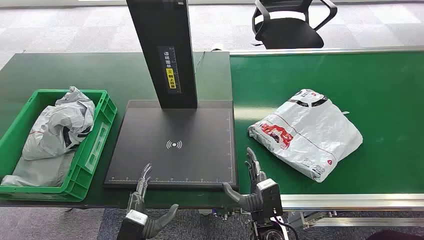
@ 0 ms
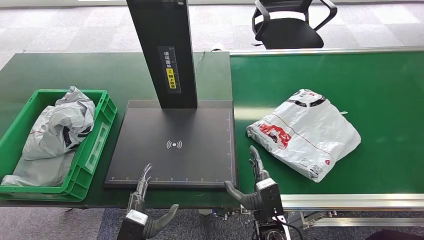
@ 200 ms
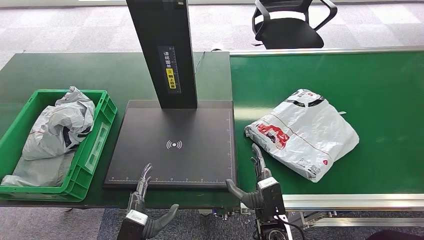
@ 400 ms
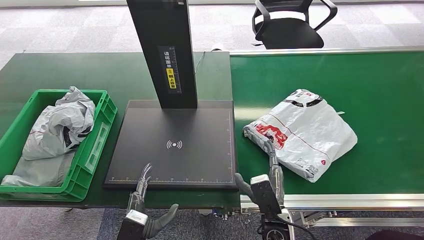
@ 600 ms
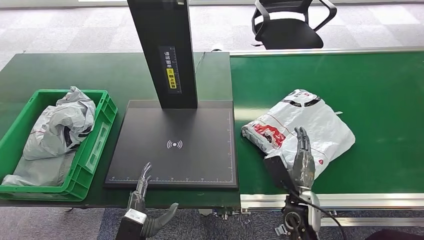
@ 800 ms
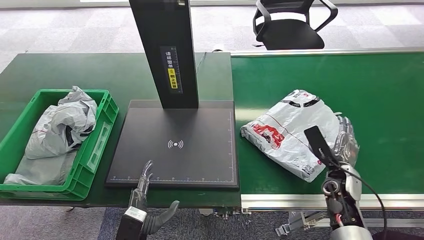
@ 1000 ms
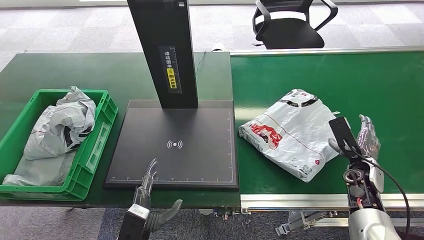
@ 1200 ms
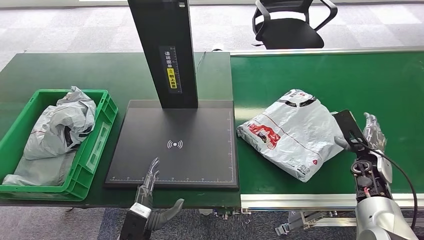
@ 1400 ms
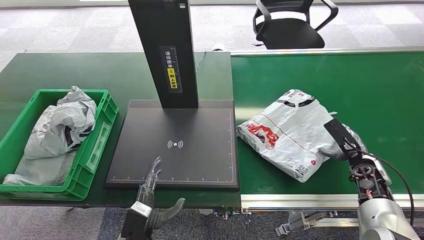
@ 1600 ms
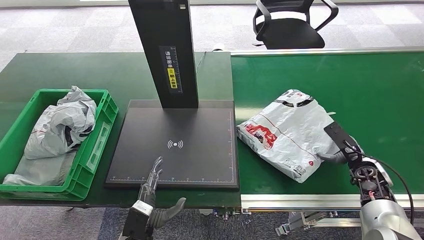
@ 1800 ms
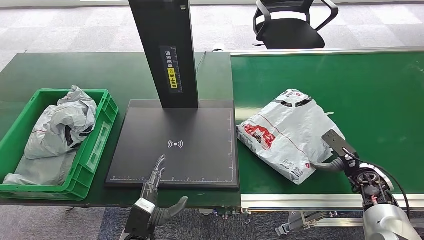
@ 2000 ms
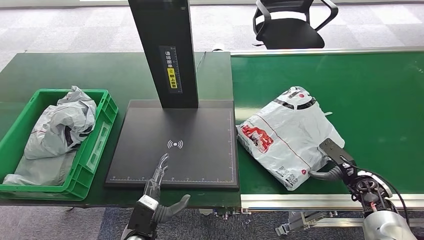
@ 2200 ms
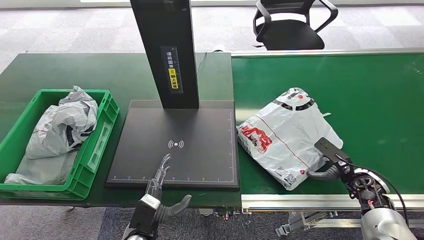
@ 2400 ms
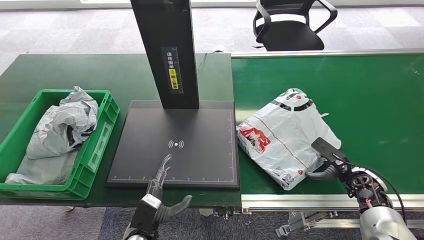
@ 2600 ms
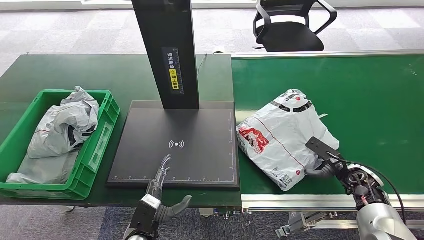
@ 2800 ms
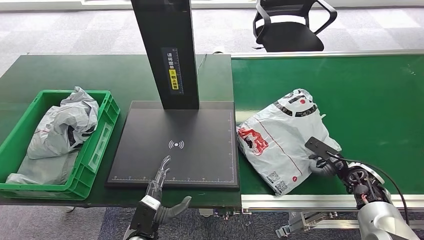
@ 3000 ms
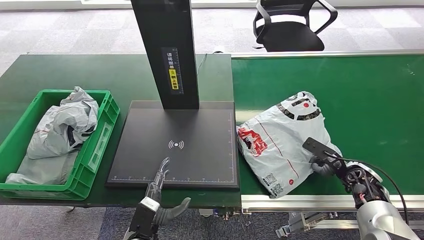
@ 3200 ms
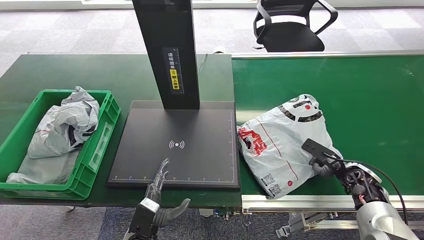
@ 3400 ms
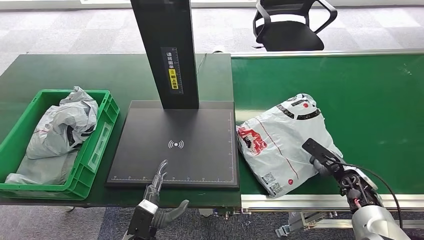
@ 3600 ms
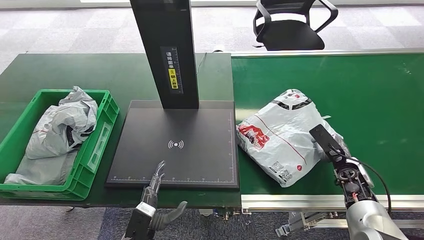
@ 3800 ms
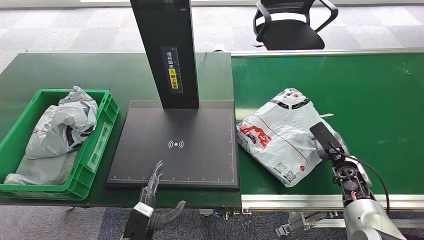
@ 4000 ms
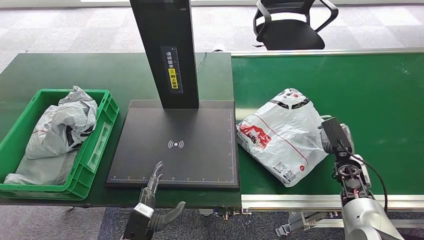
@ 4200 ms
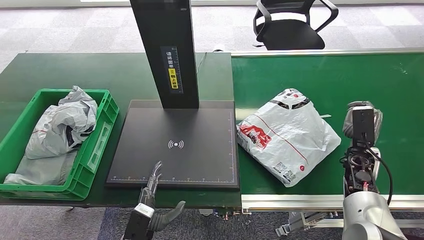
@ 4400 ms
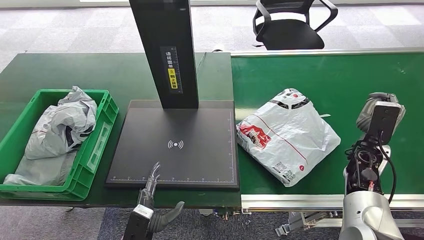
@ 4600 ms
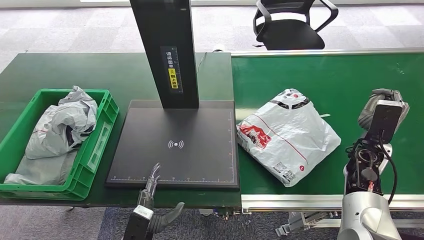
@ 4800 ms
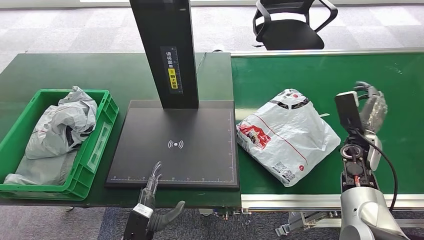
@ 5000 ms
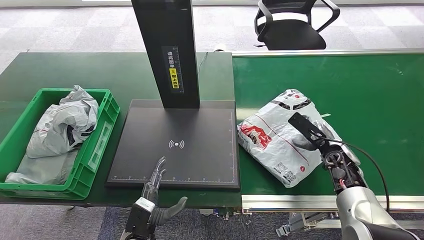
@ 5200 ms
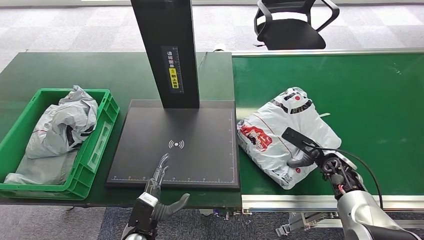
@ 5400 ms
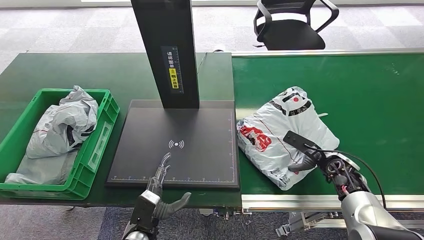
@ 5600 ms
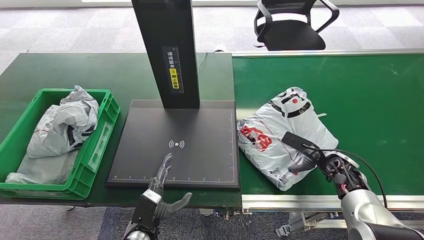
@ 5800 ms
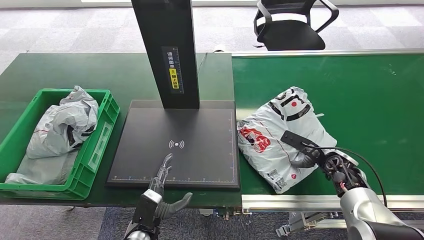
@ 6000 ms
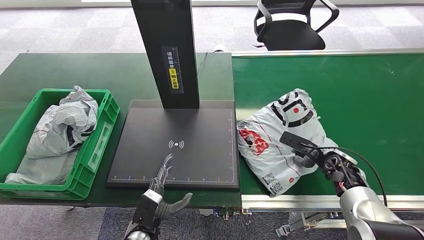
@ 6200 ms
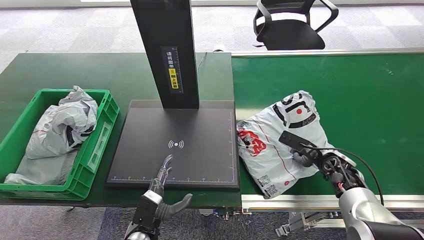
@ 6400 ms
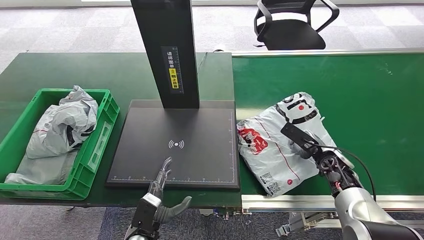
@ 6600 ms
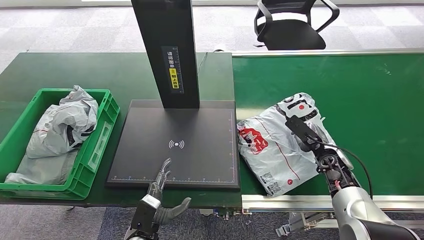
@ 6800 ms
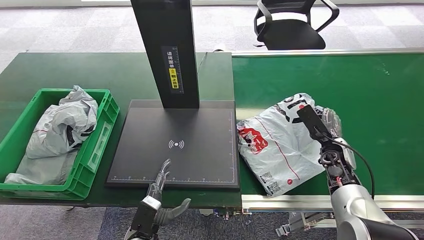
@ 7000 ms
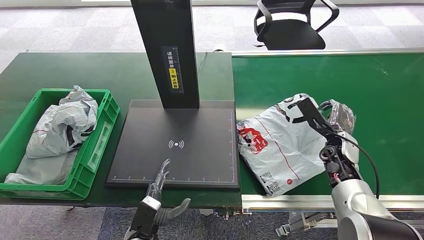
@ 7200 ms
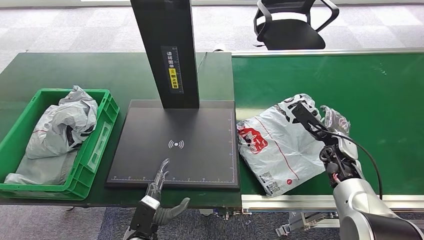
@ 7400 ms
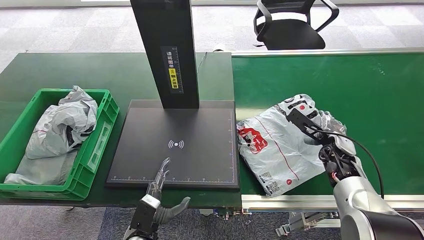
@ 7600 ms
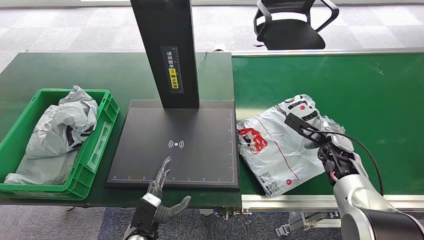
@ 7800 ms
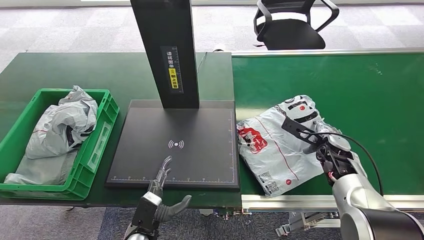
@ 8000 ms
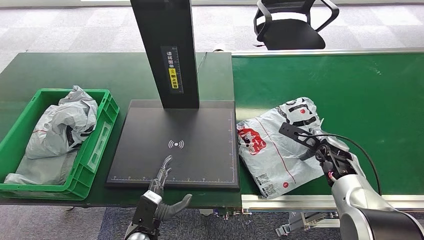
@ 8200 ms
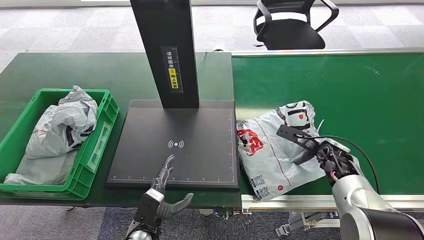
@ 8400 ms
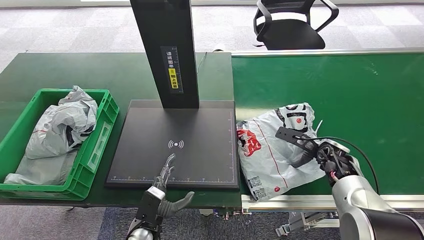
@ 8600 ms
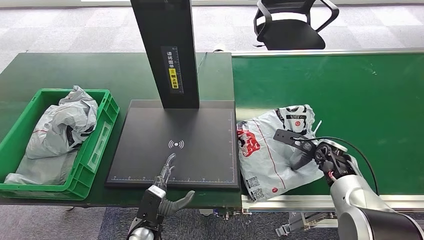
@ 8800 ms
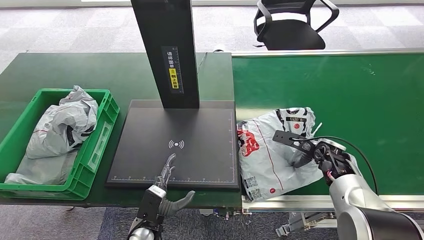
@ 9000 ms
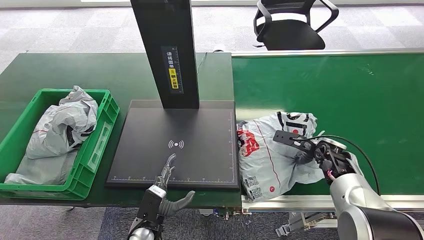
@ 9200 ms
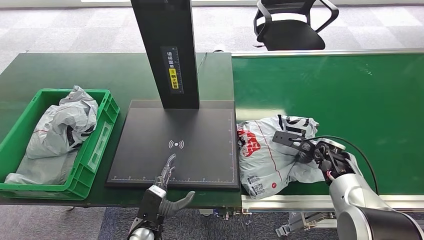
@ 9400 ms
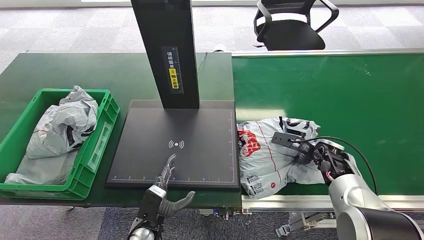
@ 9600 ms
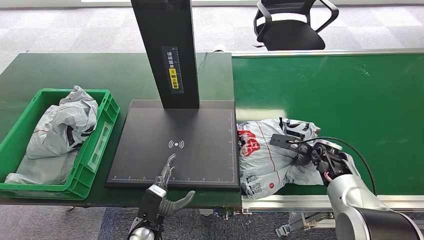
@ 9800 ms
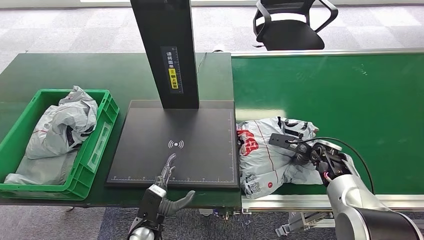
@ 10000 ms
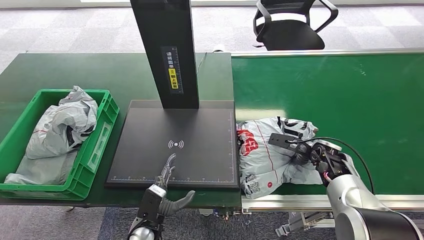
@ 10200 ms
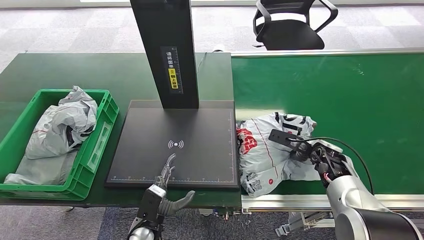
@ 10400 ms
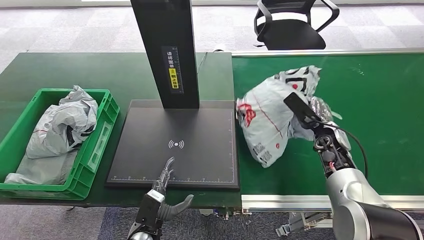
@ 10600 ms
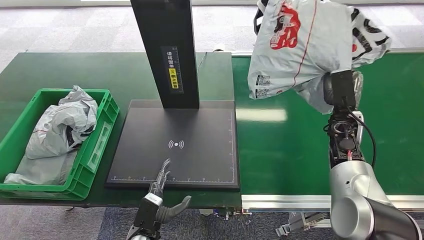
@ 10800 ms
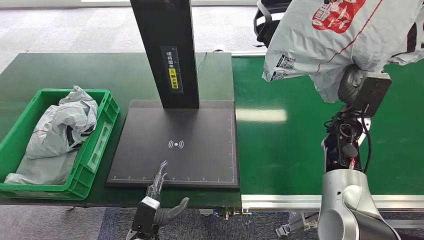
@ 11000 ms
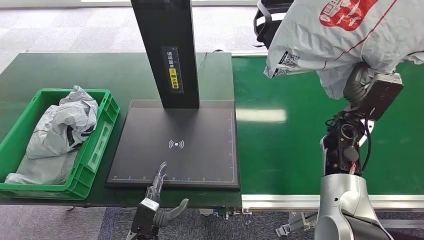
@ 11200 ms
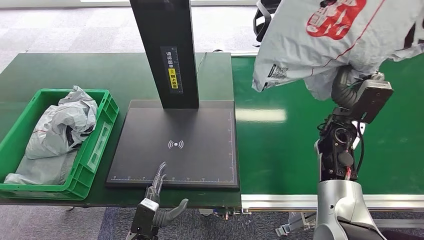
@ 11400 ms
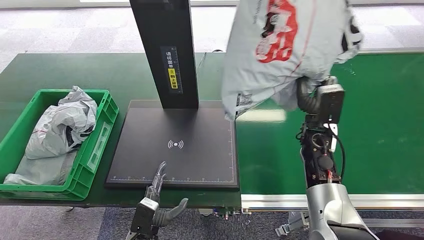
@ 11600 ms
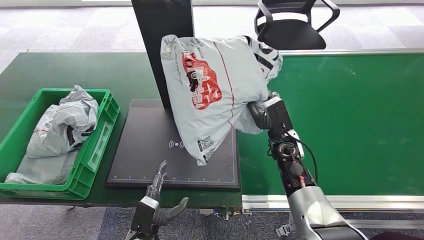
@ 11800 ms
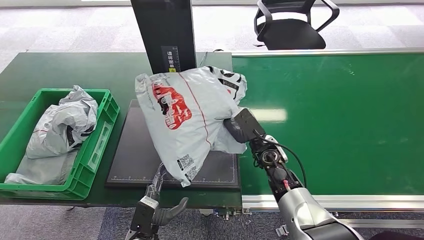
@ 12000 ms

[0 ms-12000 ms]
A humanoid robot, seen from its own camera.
Step, 0 ms to 11200 ms: Pick up the package from the conveyor belt.
3000 ms to 4400 ms: The right hand ends up roughly 5 cm from where it was.
6000 ms to 7600 ms: The right hand moves about 5 cm.
9000 ms to 10400 ms: The hands move only a little.

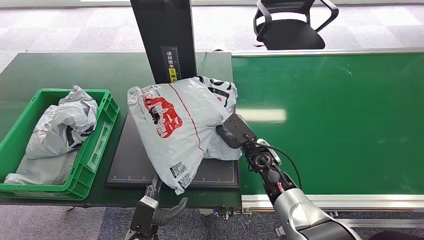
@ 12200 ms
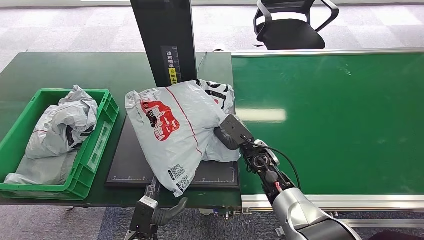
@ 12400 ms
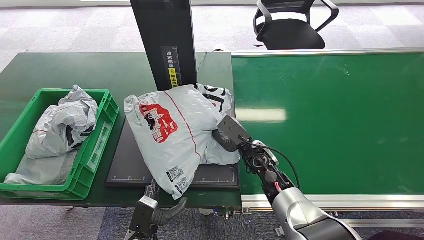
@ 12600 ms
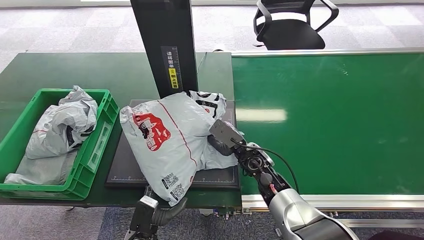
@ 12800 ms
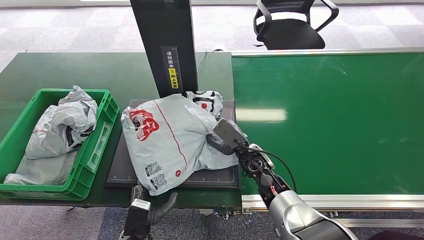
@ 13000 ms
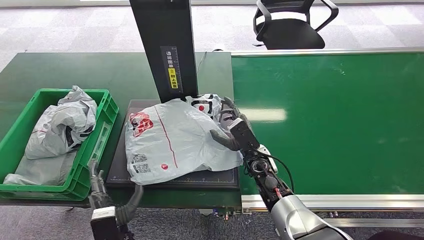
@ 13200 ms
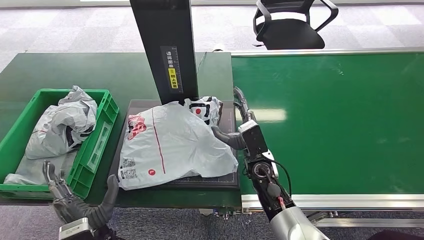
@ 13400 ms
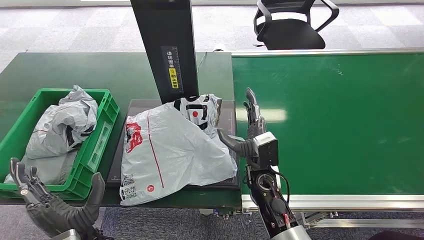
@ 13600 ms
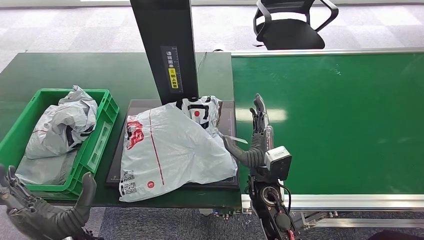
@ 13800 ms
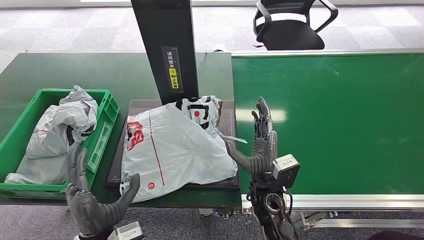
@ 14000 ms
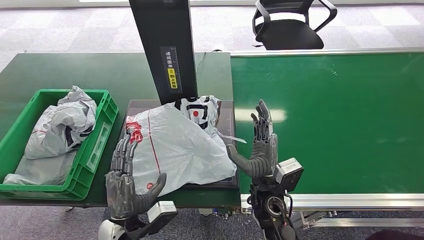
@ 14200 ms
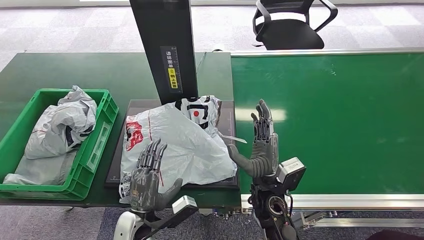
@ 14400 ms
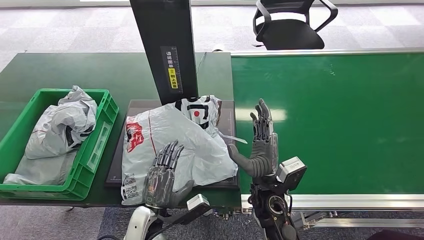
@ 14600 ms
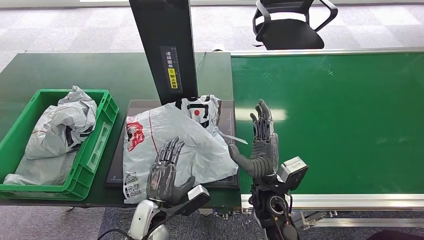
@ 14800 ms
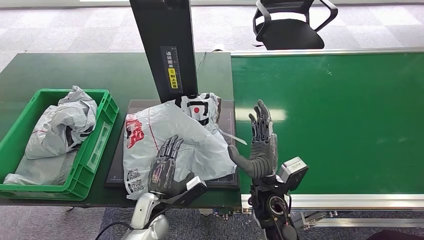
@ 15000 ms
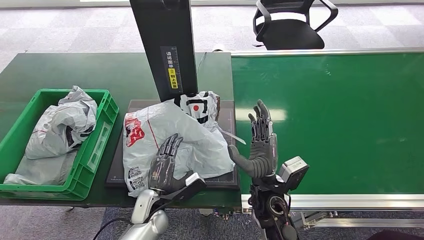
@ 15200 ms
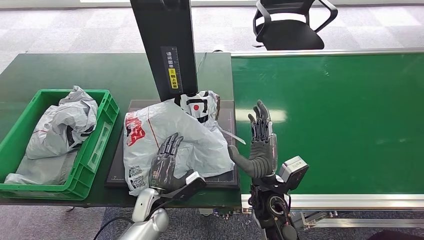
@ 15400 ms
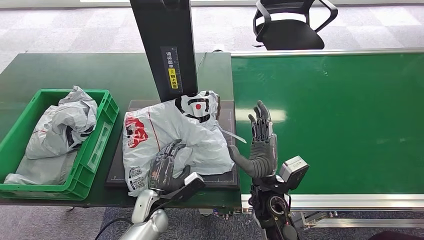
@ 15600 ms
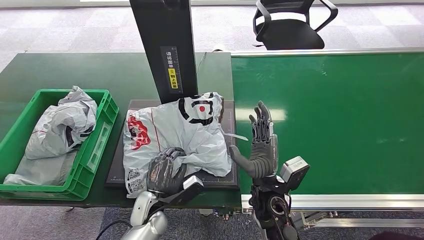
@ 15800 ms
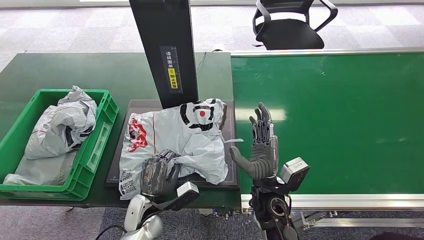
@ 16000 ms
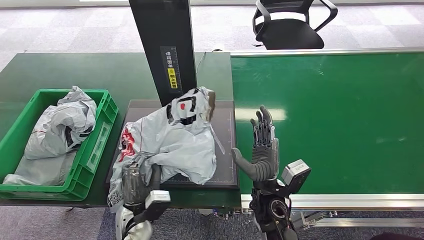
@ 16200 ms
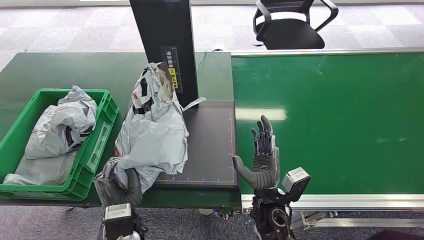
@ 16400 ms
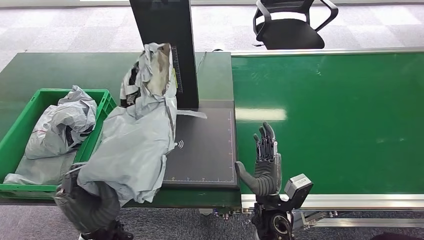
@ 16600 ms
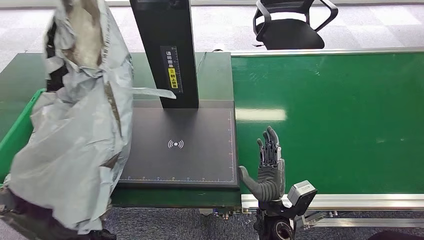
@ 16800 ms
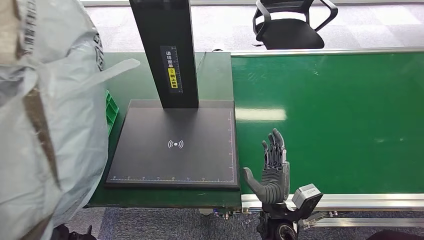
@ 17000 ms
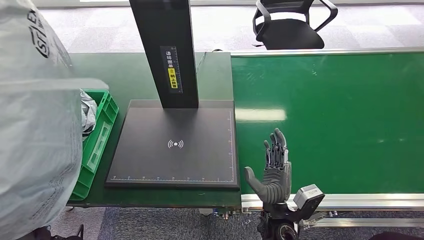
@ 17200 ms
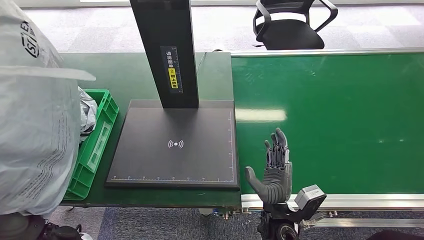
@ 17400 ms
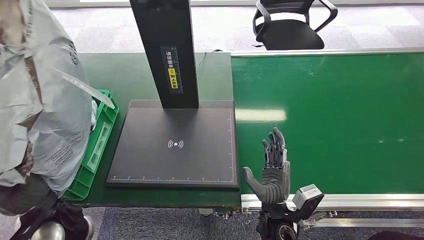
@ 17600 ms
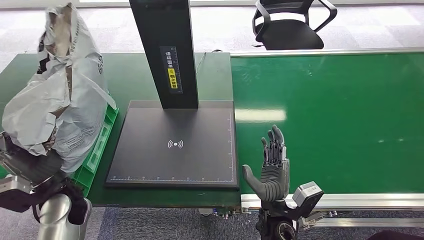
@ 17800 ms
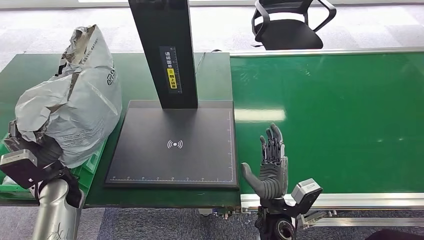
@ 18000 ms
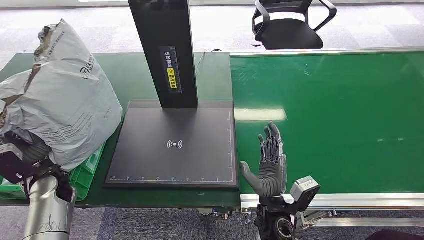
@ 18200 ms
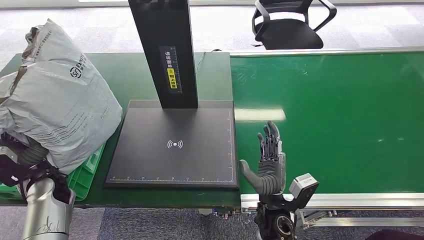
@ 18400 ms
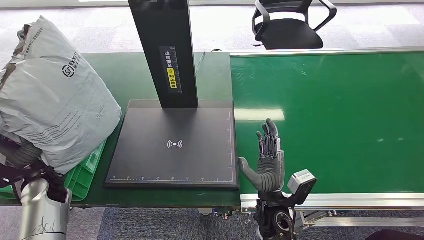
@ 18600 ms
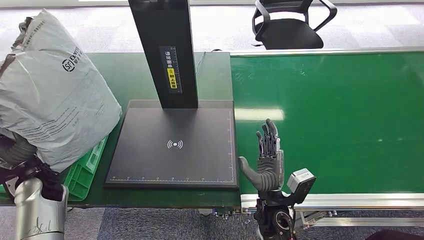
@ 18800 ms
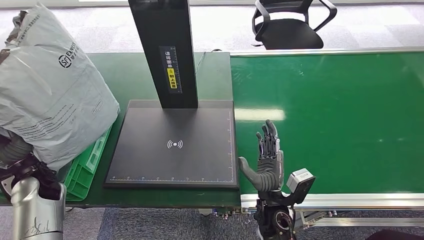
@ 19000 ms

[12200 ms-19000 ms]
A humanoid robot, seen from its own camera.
Step, 12200 ms to 14000 ms: Place the package onto the inbound machine.
Step, 14200 ms to 16800 ms: Pick up the package from the inbound machine.
12200 ms to 13600 ms: The left hand is displaced upward by about 15 cm, while the right hand travels backward by roughly 5 cm.
13600 ms to 15000 ms: The left hand is displaced forward, downward and to the right by roughly 15 cm.
17600 ms to 19000 ms: The left hand is displaced to the left and forward by roughly 15 cm.
